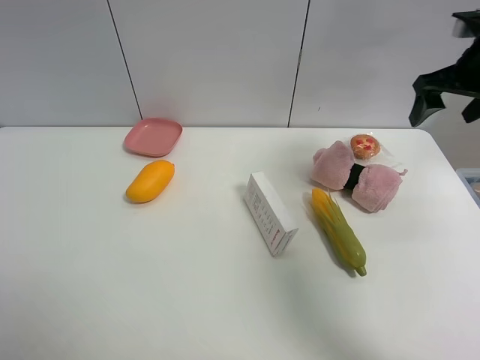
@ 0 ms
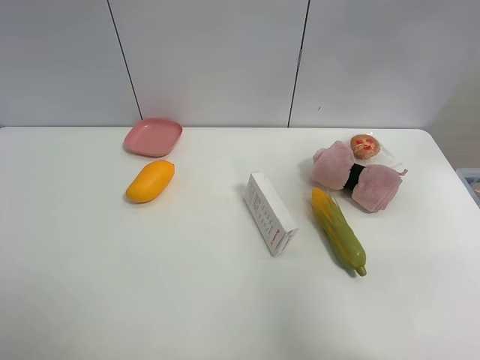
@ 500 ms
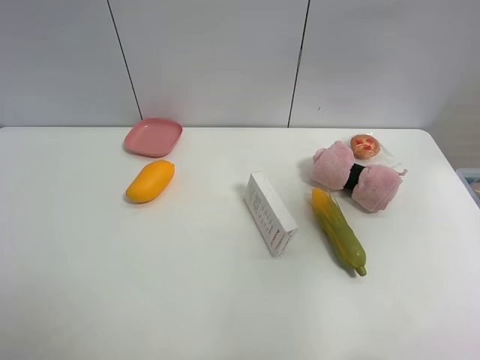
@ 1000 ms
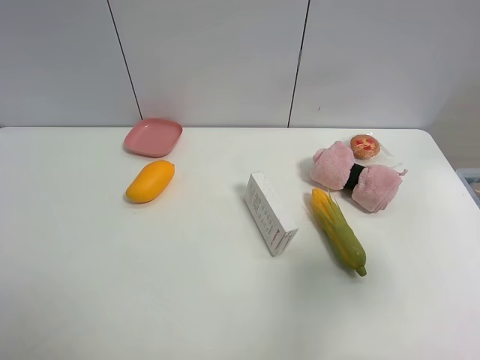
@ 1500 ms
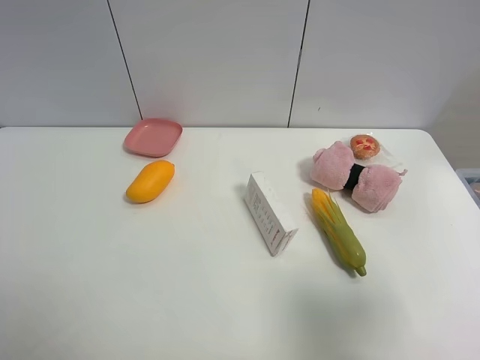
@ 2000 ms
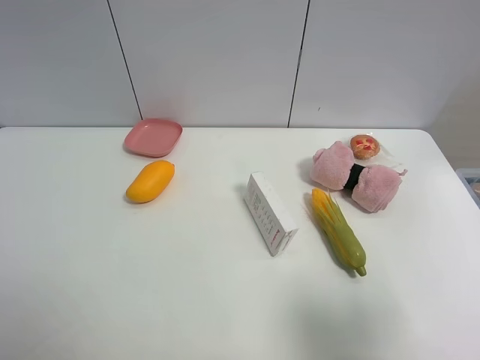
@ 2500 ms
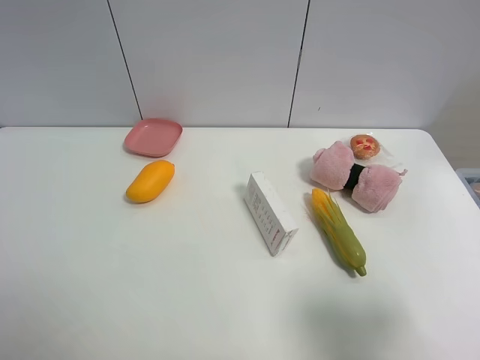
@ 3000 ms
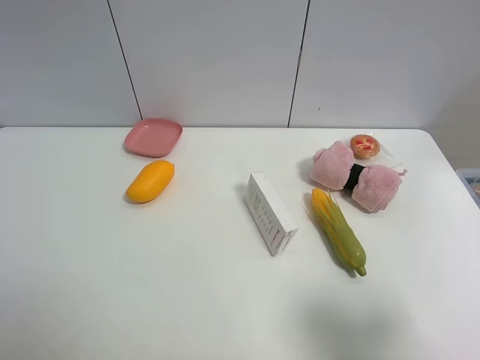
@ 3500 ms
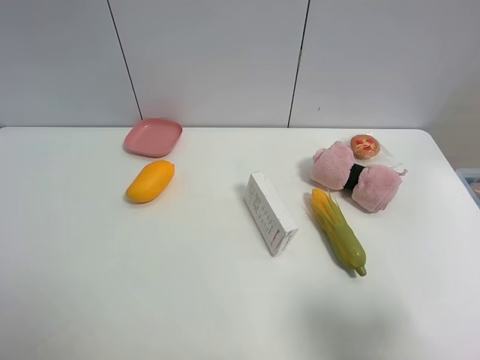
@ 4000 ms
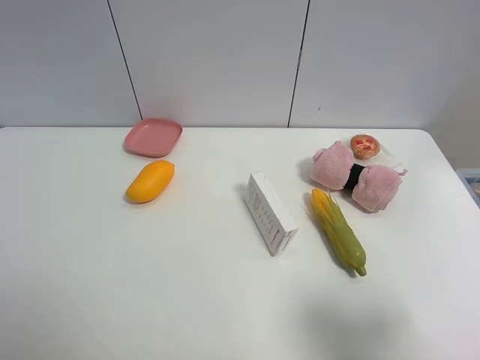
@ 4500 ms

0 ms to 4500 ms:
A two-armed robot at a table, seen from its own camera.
Task of the whole recording: the gripper move the object.
0 ms to 2000 ms: The right gripper heads backward, covering approximately 35 cm.

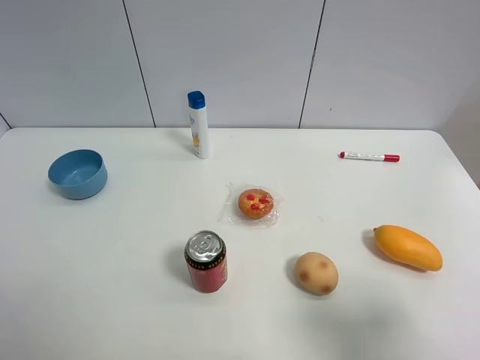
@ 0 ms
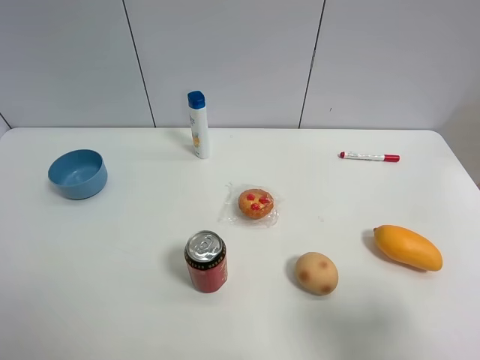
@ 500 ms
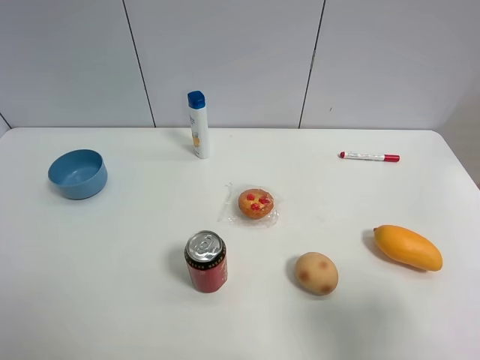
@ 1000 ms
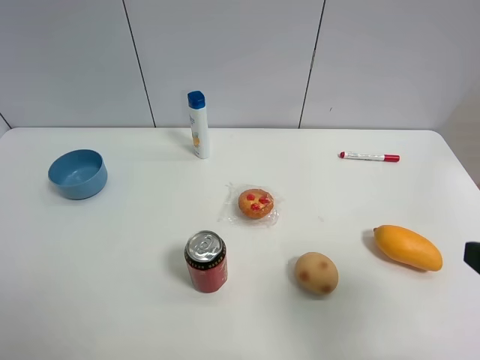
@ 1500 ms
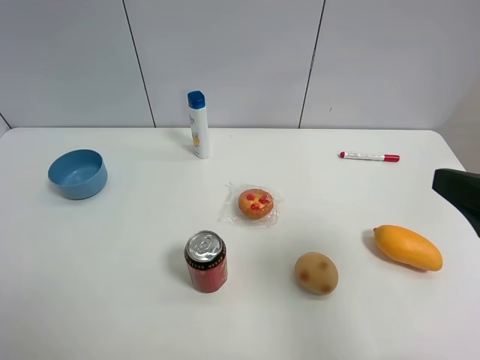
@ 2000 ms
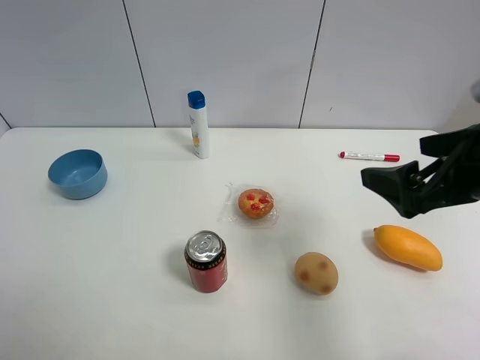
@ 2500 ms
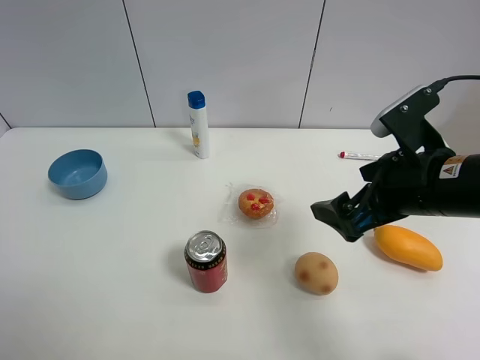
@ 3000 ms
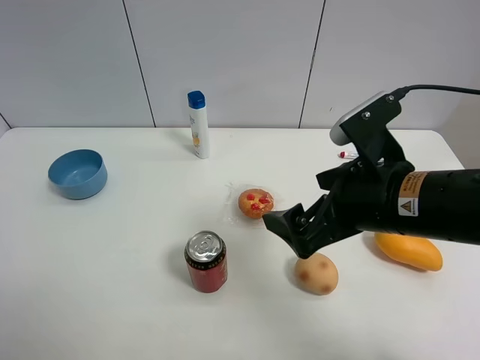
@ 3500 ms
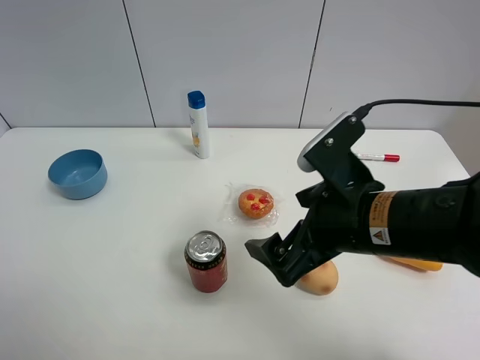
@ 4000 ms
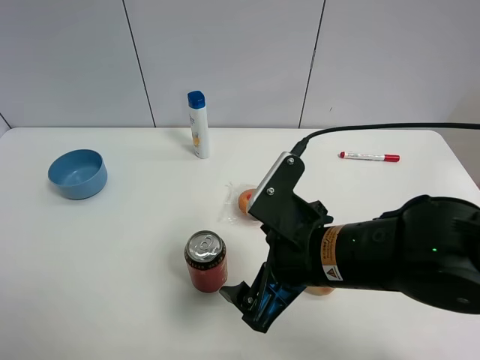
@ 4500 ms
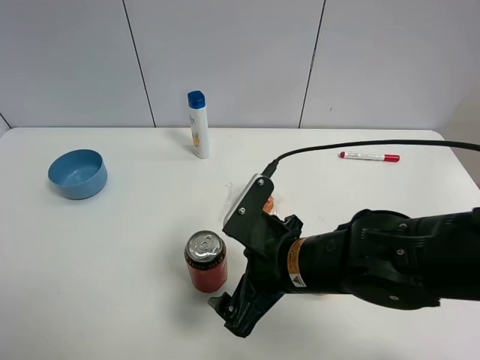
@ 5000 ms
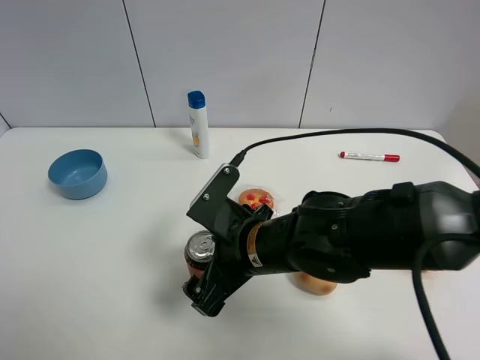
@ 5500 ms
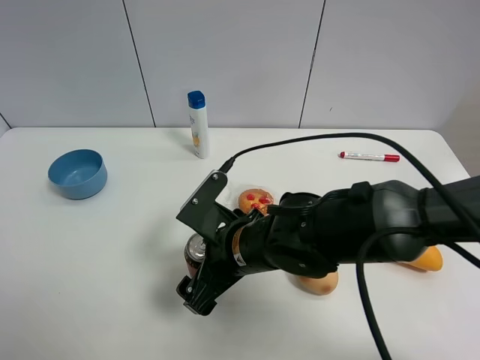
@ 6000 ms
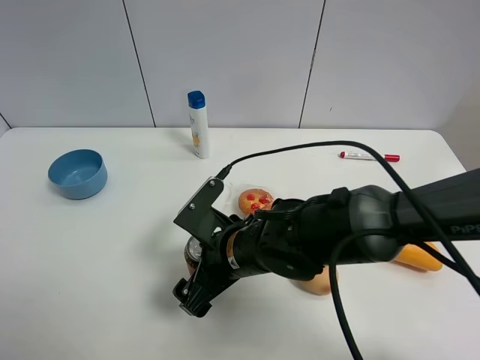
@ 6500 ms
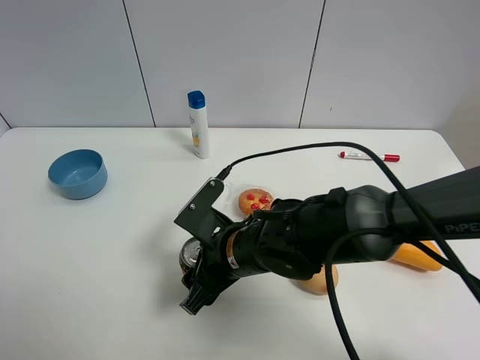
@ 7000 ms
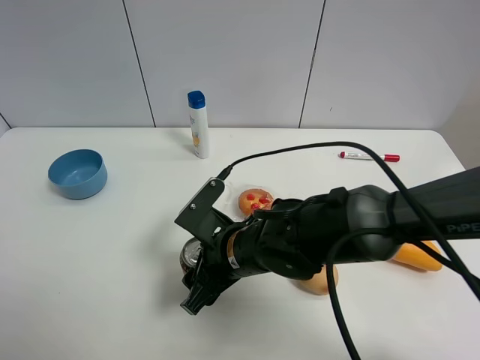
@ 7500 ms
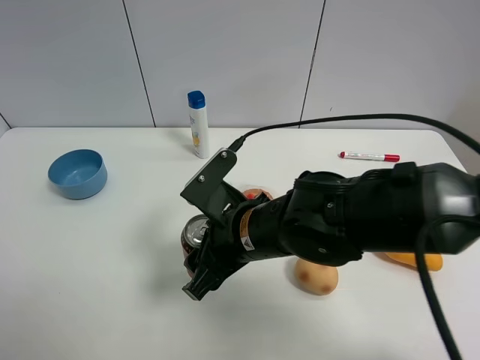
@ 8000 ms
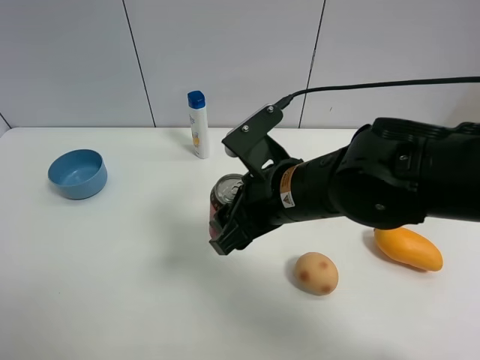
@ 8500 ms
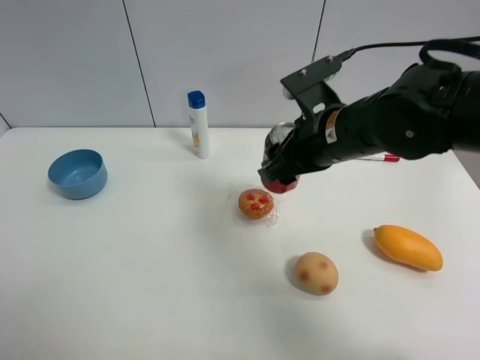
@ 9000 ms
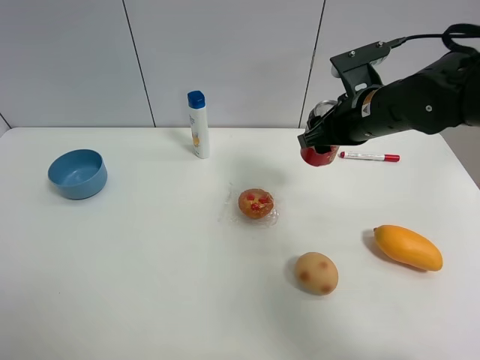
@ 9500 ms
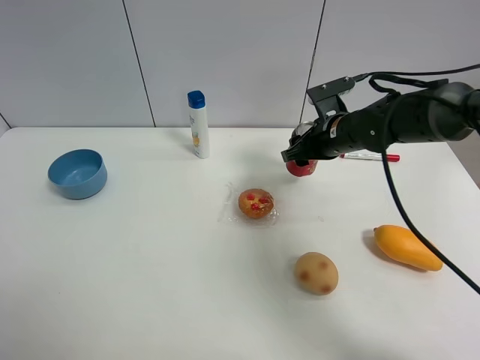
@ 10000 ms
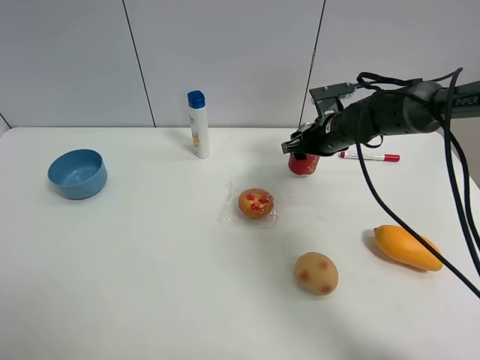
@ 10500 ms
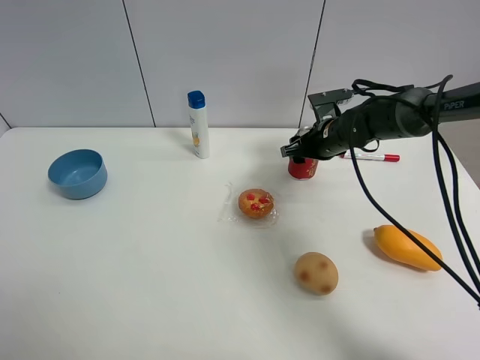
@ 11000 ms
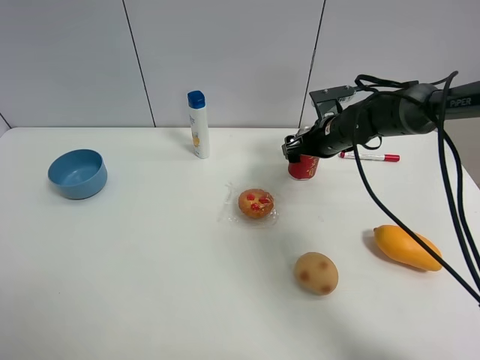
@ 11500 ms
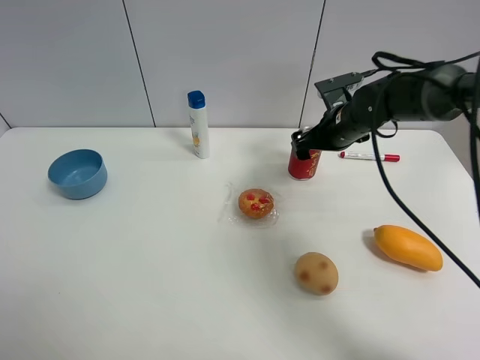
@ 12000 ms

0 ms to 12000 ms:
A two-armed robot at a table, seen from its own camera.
Task of the whole recording: the gripper move the object.
Step, 0 ms to 7000 ms: Grasp the Jia Duo Bao with the right gripper.
Step, 7500 ms to 11500 ms: Place the Jia Duo Bao on the table with the right gripper.
0 ms to 2000 ms: The right gripper travels forward and upward by roughly 10 cm.
2000 ms to 4000 ms: The right gripper goes some 20 cm to the left and downward.
4000 ms to 6000 ms: The right gripper shifts roughly 15 cm to the left and downward.
6000 ms to 8000 ms: The right gripper closes.
8000 ms to 10000 ms: The right gripper travels forward and to the right by roughly 25 cm.
10000 ms to 12000 ms: The right gripper opens up.

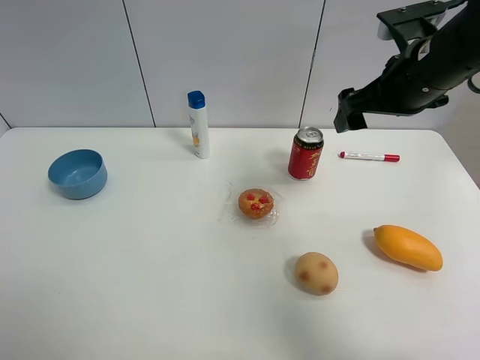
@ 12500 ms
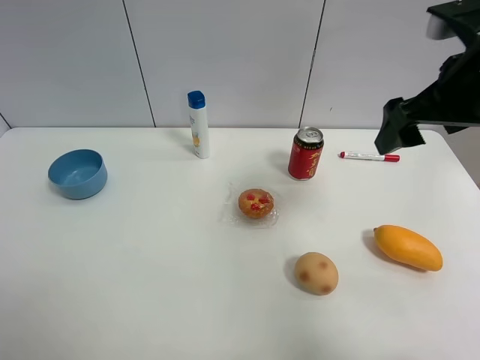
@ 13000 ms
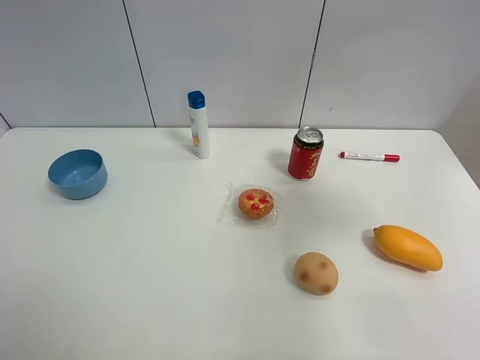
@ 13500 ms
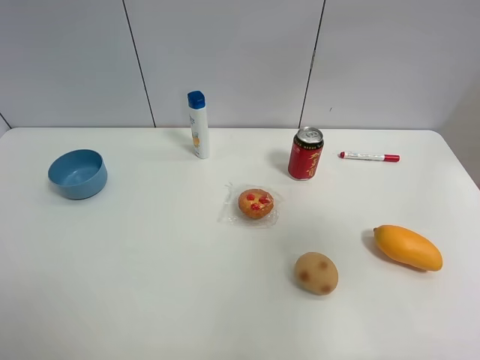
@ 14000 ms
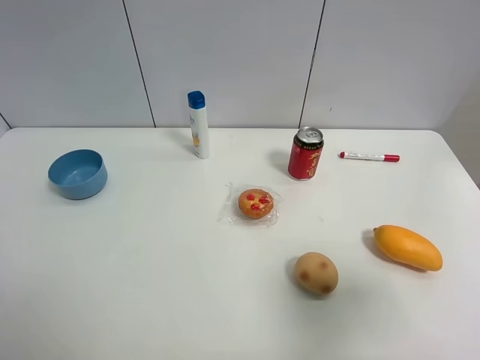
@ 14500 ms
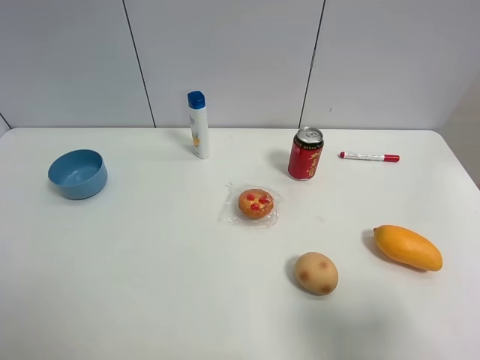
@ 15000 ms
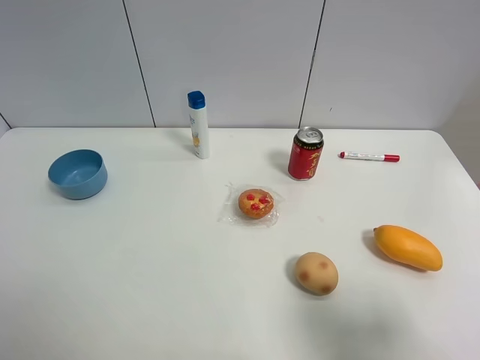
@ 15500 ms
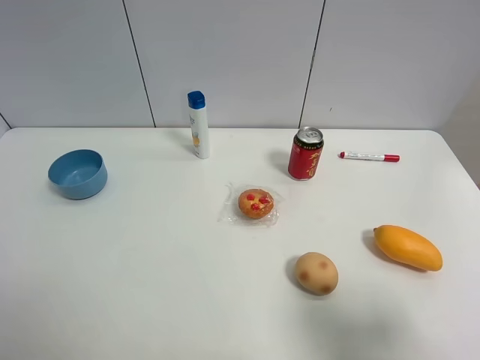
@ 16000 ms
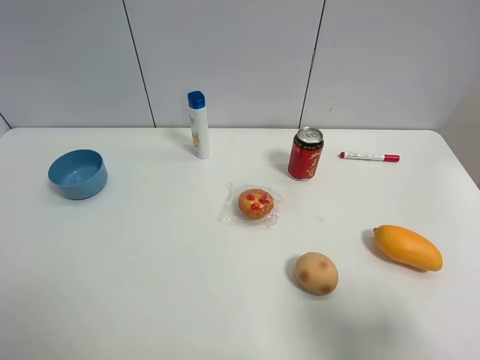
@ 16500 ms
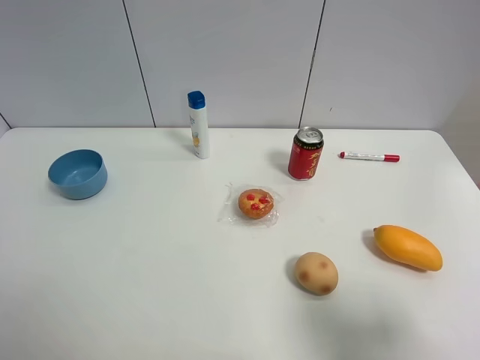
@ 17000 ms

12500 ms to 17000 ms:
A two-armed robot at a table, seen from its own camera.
Task of the whole recording: the gripper move the object.
12500 ms to 14500 ms: The right gripper goes about 25 cm backward.
14500 ms to 17000 ms: The right gripper heads downward, covering approximately 5 cm.

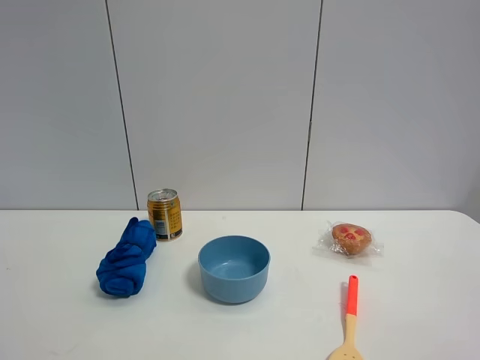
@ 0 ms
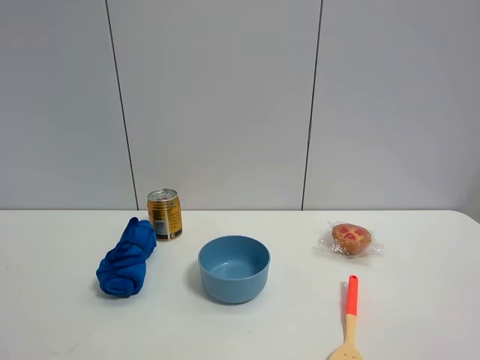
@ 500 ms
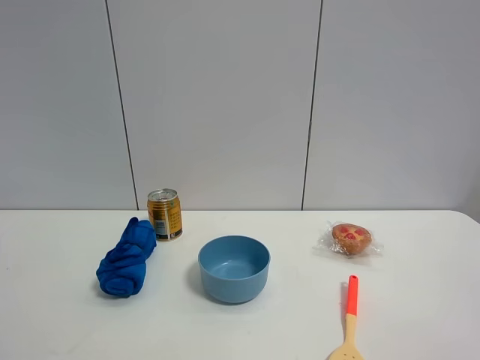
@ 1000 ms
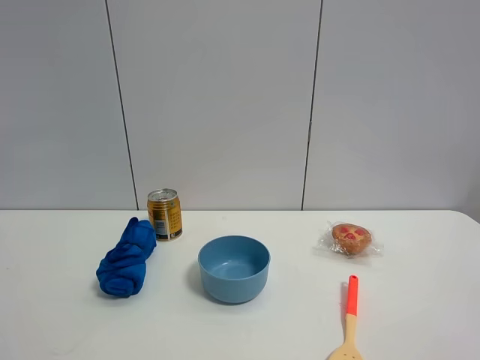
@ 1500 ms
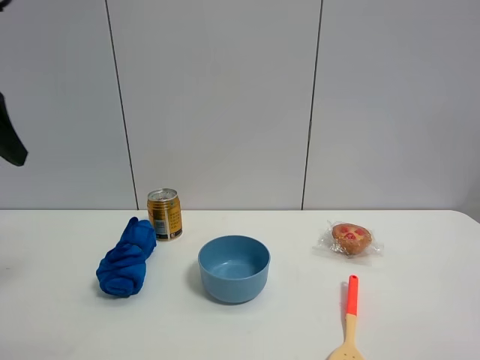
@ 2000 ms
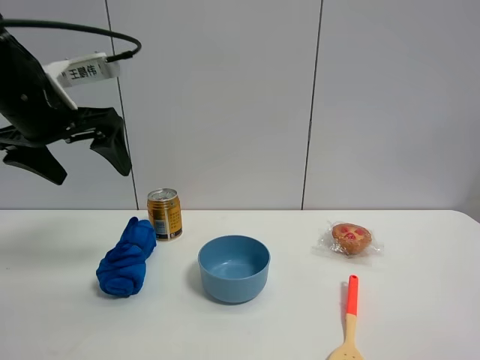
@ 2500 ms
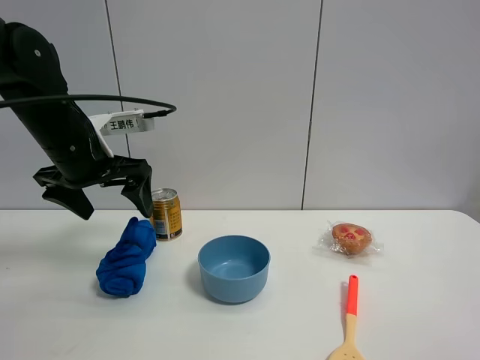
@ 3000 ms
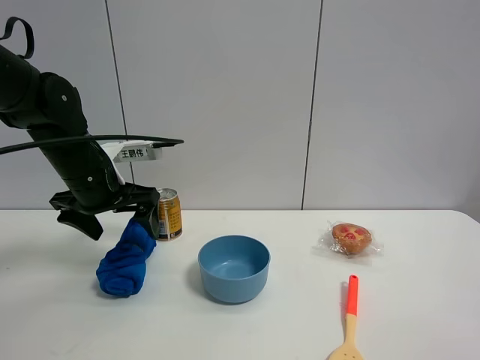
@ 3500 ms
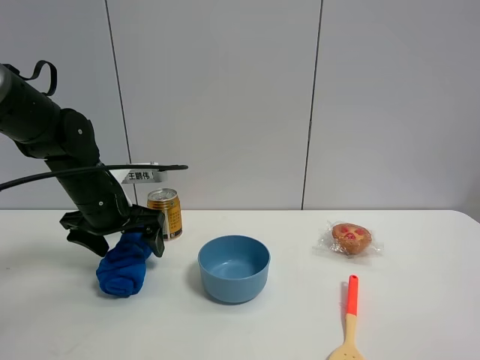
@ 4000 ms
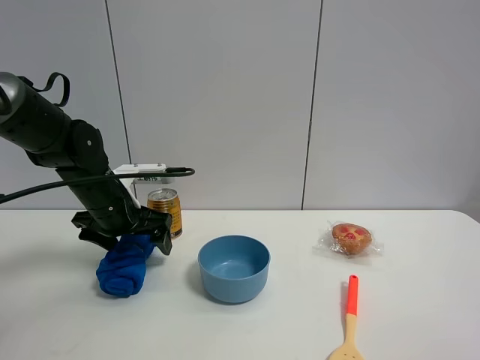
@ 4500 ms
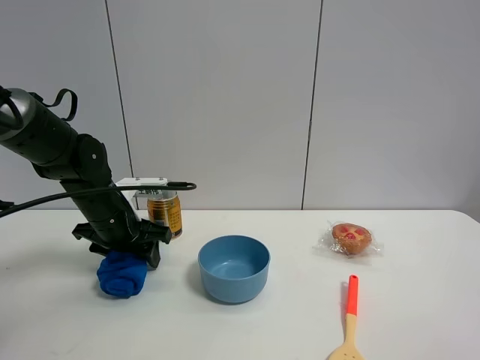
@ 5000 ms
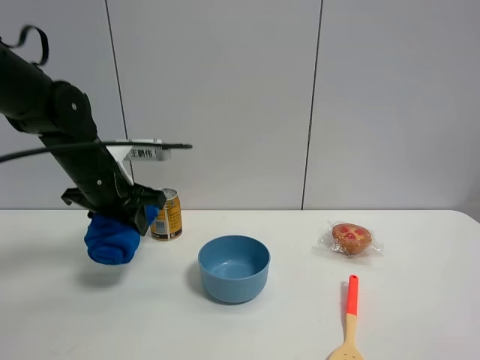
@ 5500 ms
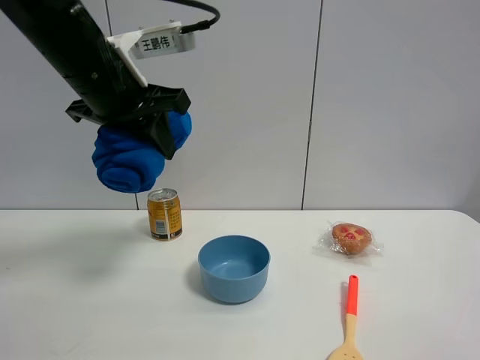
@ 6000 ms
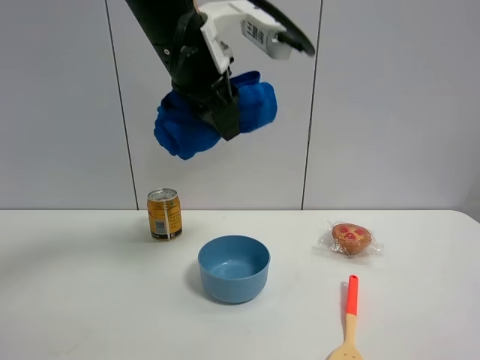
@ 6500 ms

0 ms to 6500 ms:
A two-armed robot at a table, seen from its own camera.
Task of the whole recording: the gripper move the object.
Step, 0 ms to 5000 ms: Grasp the blue towel with the left gripper.
0 ms to 2000 ms: The left gripper moves forward, some 25 cm.
2000 ms to 4500 ms: The left gripper shifts approximately 25 cm downward, forward and to the right.
4500 ms to 6500 ms: The left gripper heads upward and to the right, covering some 25 cm, and closes up.
